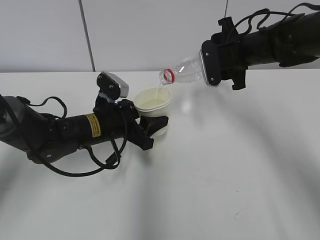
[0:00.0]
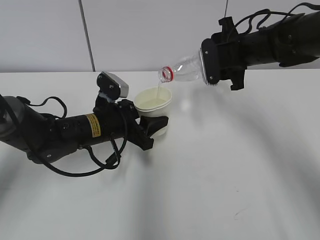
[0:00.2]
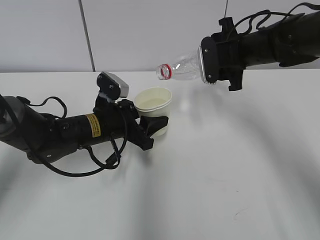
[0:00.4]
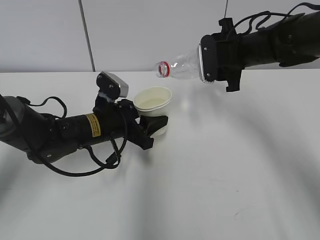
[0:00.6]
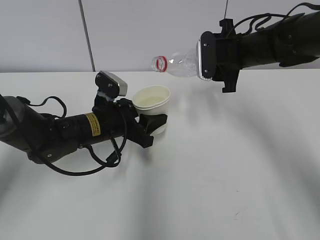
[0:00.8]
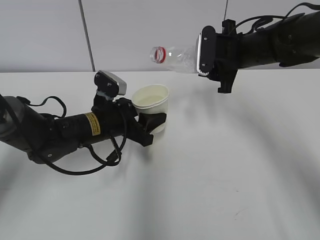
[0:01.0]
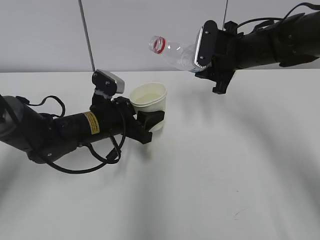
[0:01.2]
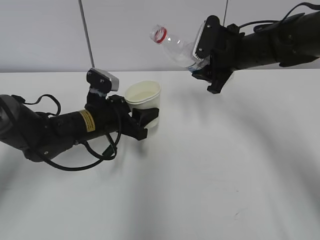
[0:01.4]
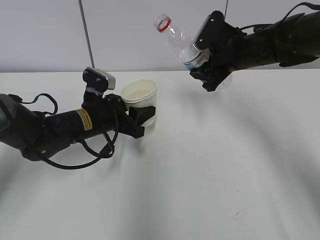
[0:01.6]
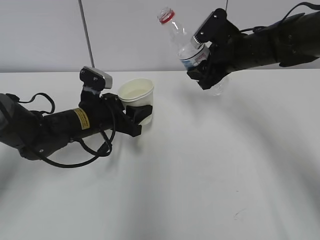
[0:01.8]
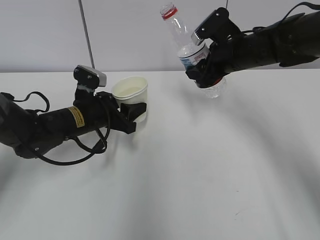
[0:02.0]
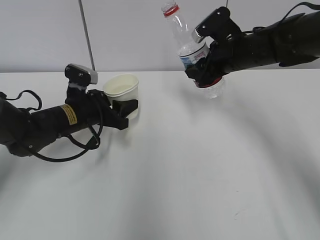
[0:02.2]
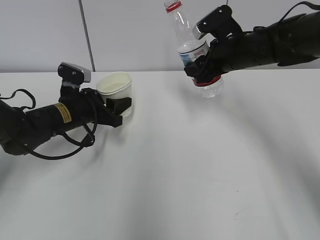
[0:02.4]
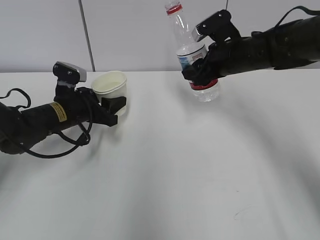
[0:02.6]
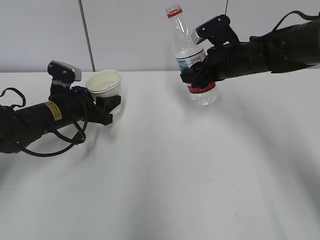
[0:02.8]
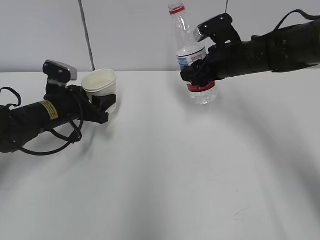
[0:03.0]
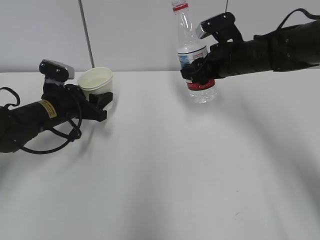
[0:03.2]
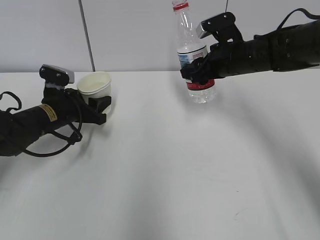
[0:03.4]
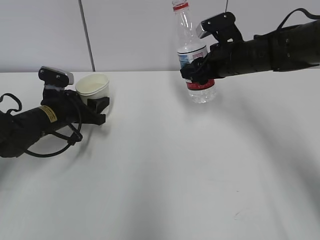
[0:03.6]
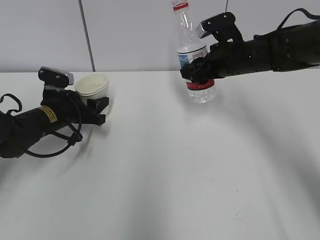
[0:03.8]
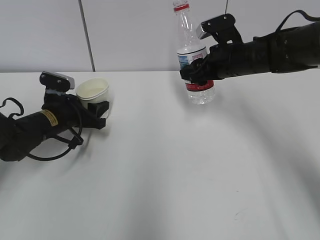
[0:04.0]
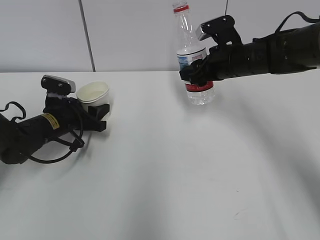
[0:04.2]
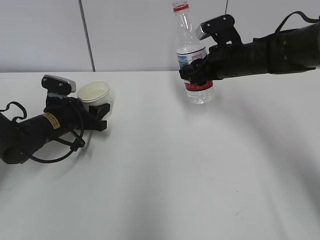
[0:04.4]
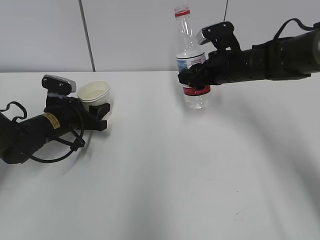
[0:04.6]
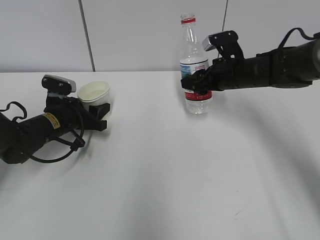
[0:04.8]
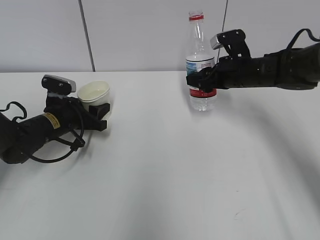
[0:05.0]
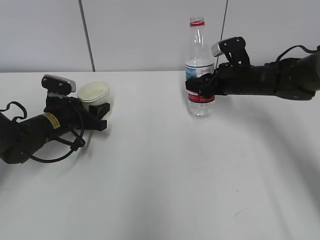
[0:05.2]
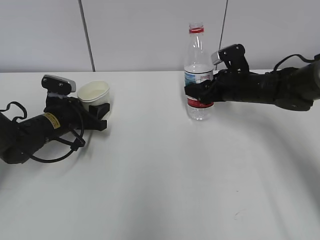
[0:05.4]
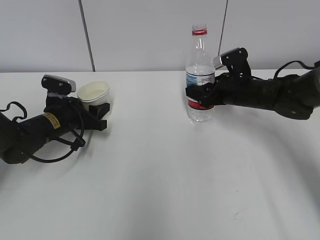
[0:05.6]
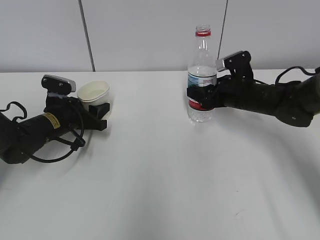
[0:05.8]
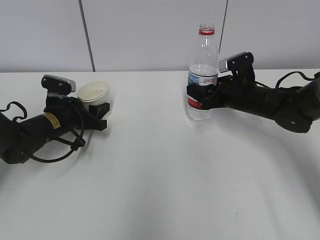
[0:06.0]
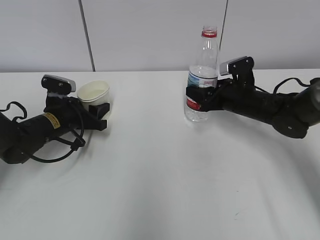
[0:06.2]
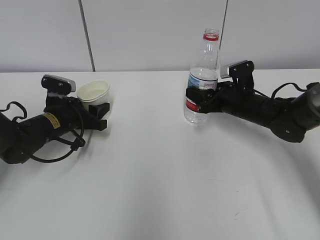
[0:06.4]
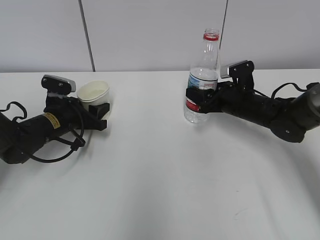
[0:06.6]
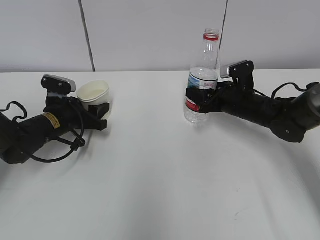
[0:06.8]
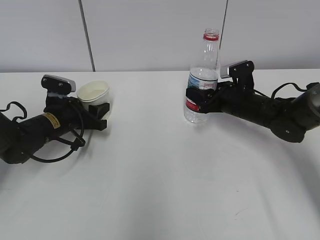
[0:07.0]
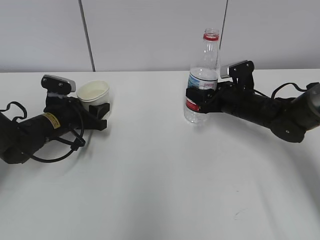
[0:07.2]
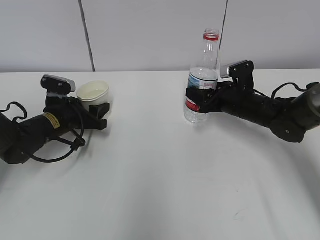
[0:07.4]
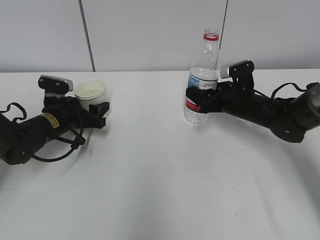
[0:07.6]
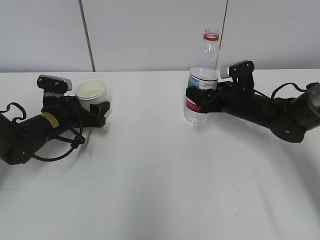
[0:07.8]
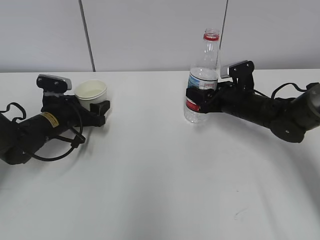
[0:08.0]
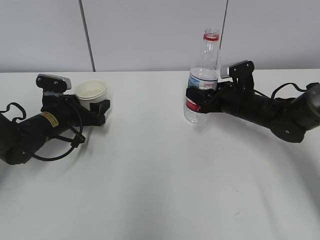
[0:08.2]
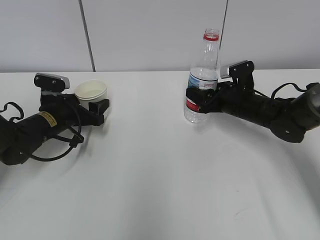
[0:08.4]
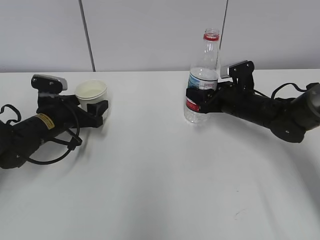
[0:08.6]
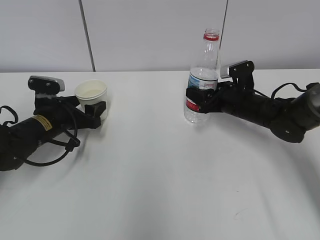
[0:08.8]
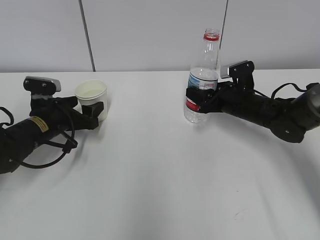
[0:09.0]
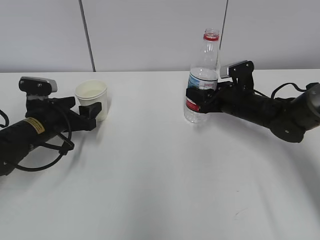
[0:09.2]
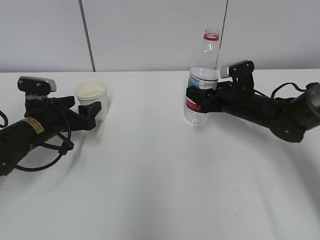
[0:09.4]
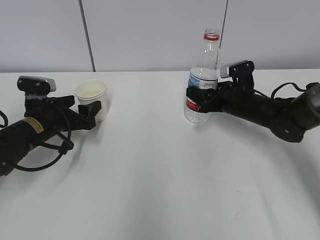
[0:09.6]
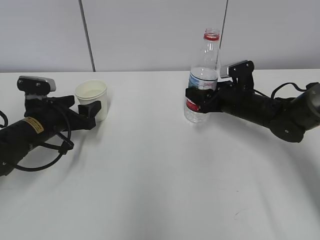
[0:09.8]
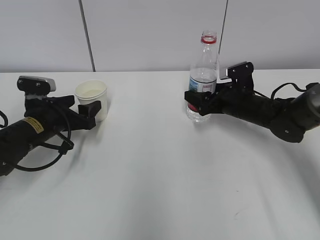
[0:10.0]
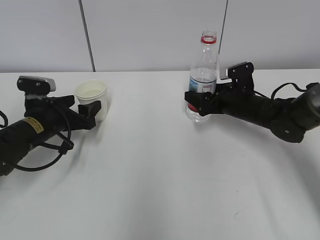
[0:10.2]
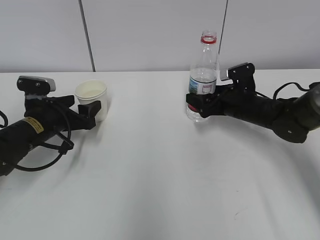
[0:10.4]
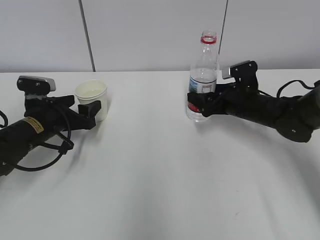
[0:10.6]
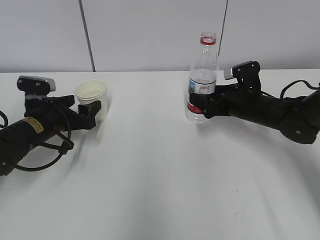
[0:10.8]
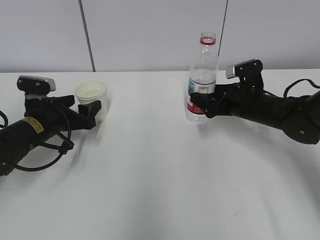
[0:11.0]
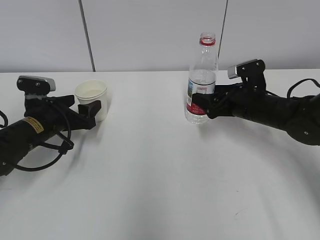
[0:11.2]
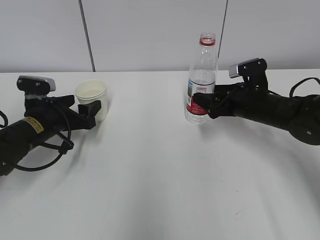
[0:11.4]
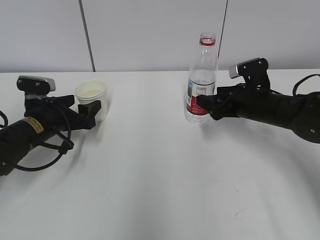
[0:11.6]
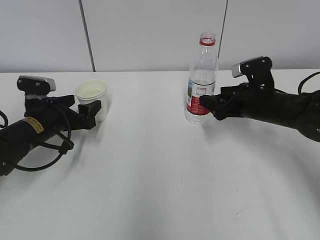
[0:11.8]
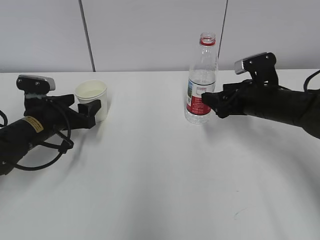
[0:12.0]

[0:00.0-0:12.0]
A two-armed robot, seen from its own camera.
Step, 0:00.0 to 0:02.2: Place the paper cup with the left hand.
Step, 0:02.4 to 0:05.2: Place the water bottle with the right hand.
0:01.6 to 0:03.0: The left gripper travels to the left by some 10 cm.
0:03.0 to 0:04.4: There are only small adjustments of the grippers.
0:04.4 to 0:06.0: The right gripper travels downward by some 10 cm.
0:06.0 to 0:09.0: The grippers move only a little.
0:09.0 to 0:10.4: The right gripper opens up.
0:10.4 to 0:12.0: The right gripper travels backward by approximately 5 cm, and closes its fingers.

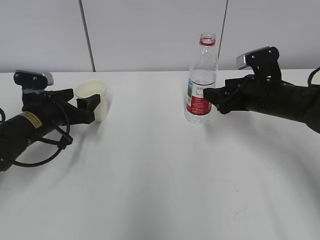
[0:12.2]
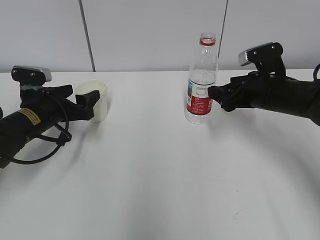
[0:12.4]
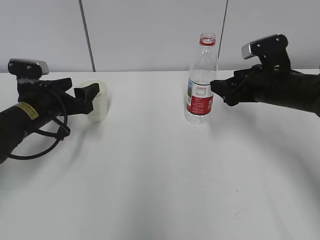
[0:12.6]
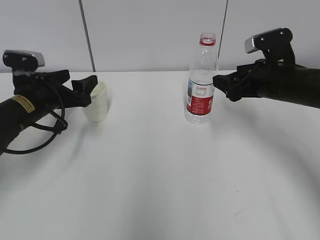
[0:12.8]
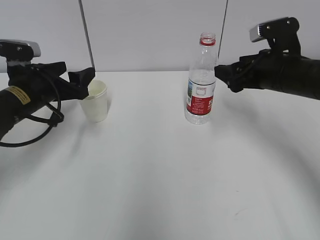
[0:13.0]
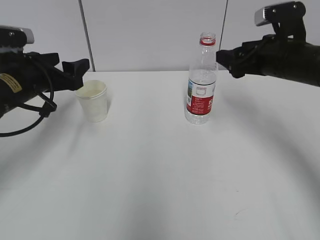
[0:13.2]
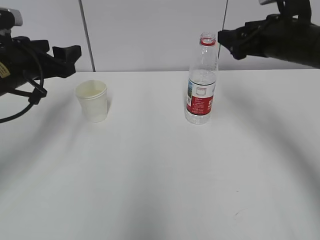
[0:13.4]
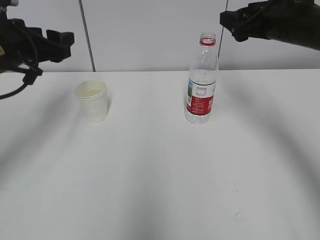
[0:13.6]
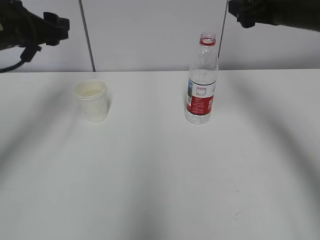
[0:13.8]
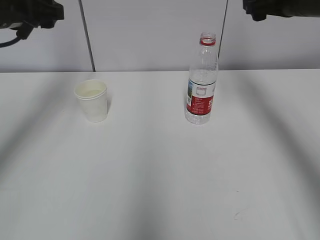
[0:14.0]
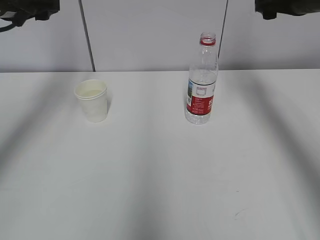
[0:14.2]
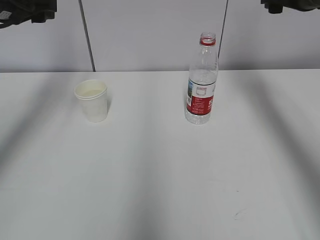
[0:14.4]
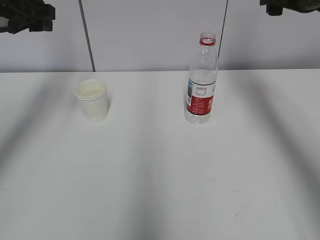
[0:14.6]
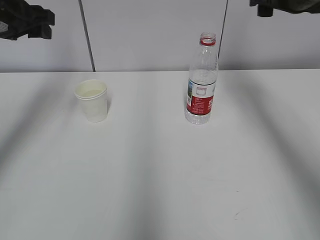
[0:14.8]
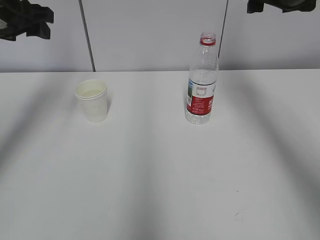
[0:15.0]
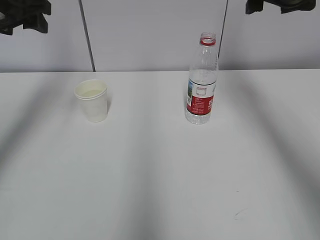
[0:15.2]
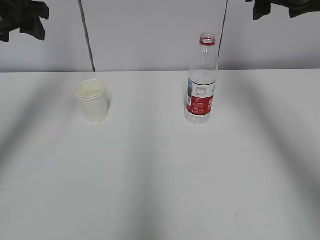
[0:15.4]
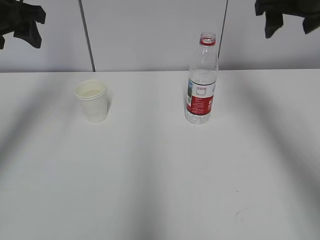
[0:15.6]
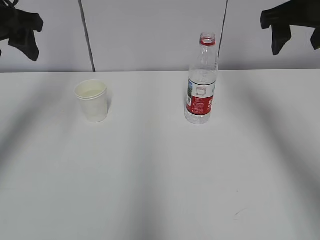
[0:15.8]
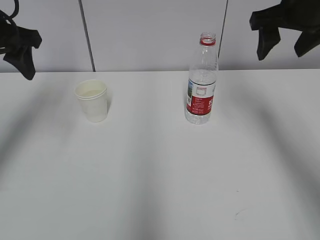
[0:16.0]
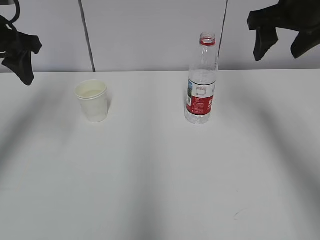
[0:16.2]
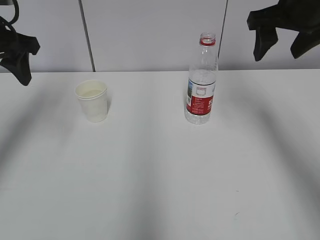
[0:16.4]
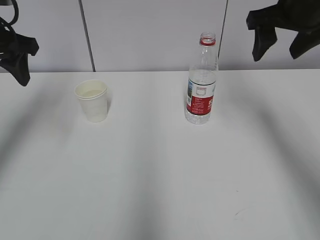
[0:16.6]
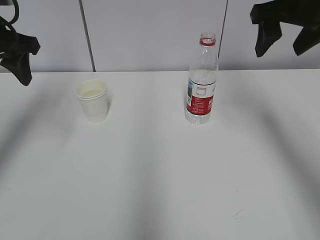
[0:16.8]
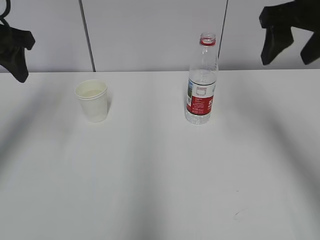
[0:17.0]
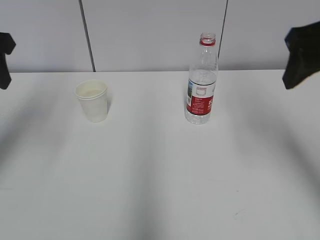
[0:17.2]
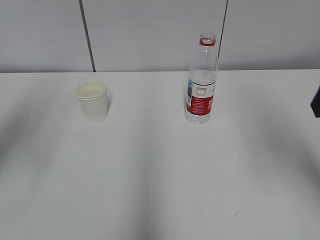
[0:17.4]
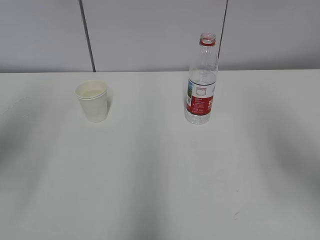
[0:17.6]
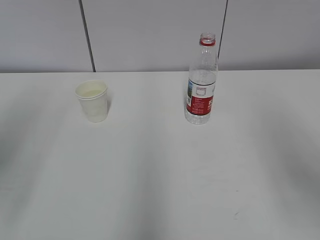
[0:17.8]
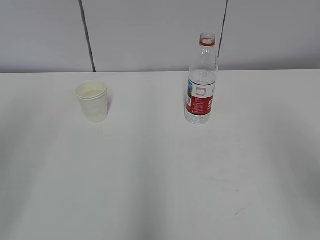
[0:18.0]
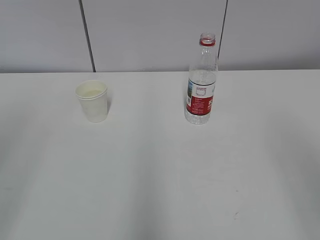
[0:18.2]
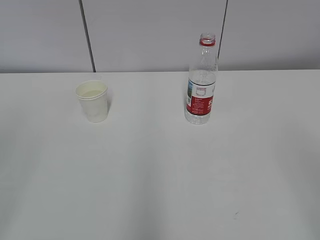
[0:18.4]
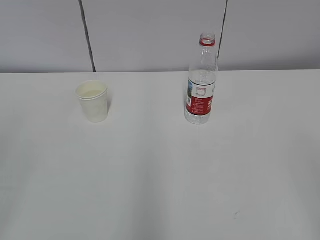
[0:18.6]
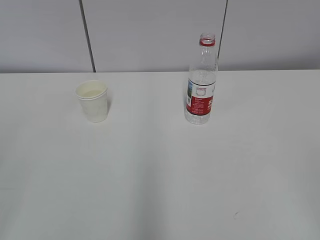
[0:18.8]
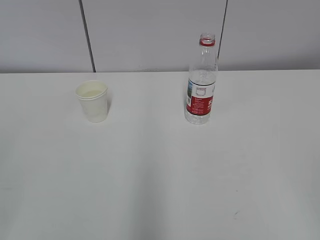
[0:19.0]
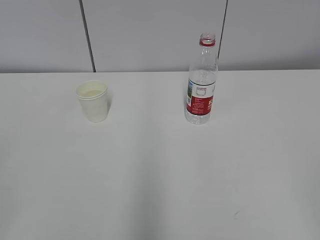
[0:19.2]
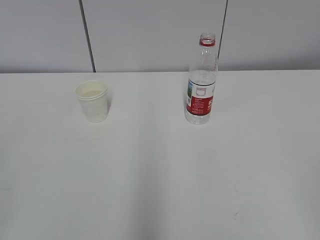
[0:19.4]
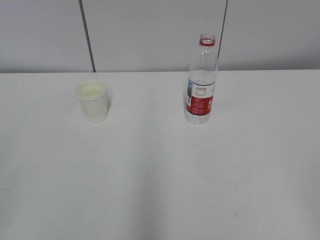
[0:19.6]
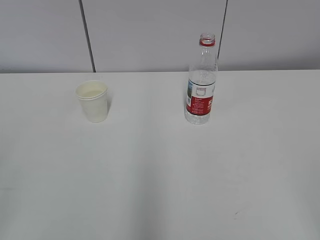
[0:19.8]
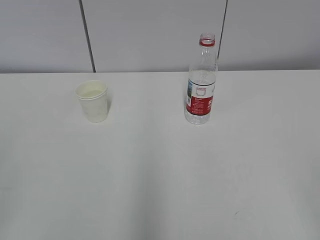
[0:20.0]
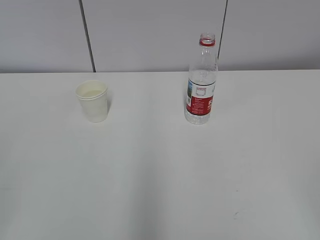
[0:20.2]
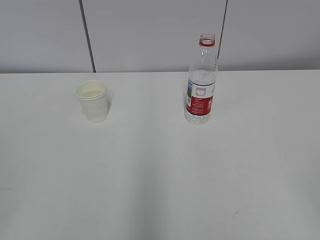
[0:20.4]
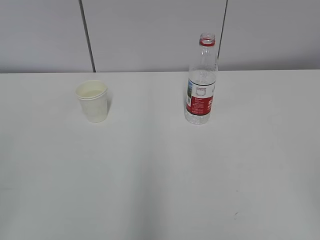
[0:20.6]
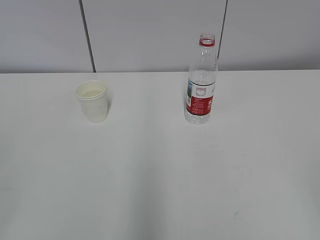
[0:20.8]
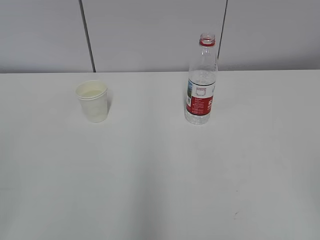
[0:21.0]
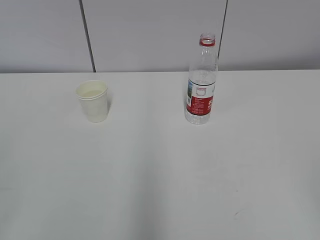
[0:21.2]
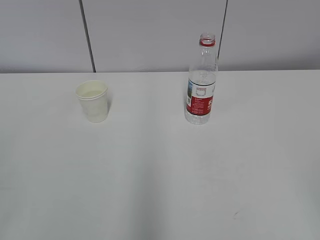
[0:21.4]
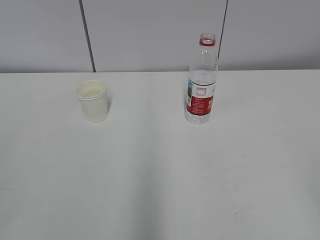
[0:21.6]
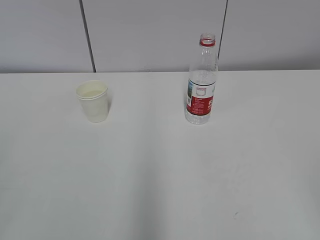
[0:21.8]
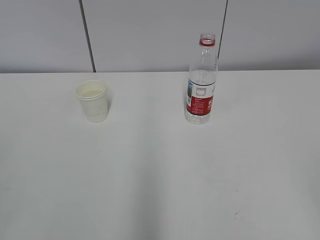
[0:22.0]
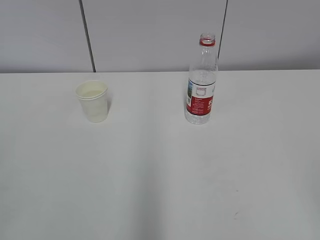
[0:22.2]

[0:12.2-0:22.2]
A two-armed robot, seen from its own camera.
0:12.2 to 0:13.6: Both grippers travel together upward, approximately 15 cm.
0:13.6 to 0:15.0: The grippers both shift upward by about 5 cm.
0:16.4 to 0:18.0: The two grippers go some 25 cm backward.
0:18.0 to 0:19.4: The right gripper moves backward and downward, roughly 15 cm.
0:20.8 to 0:22.2: Both grippers stay about where they are.
